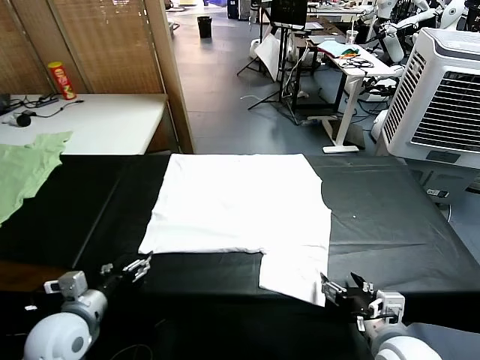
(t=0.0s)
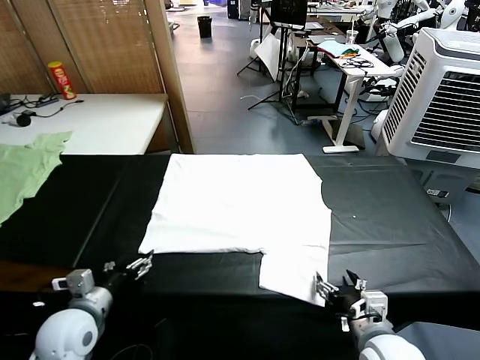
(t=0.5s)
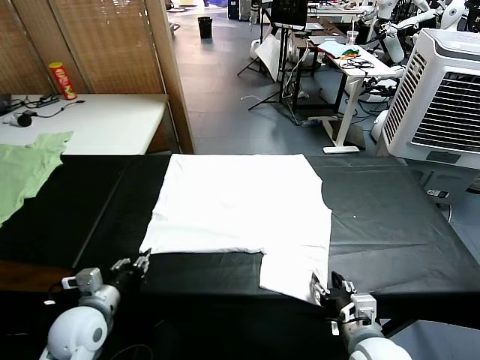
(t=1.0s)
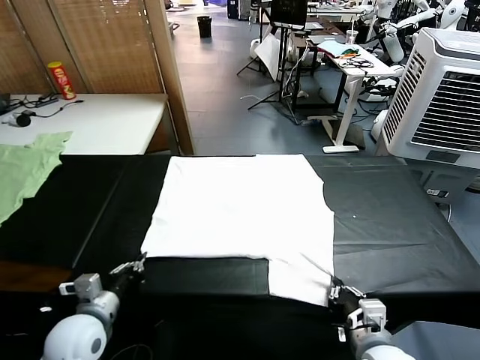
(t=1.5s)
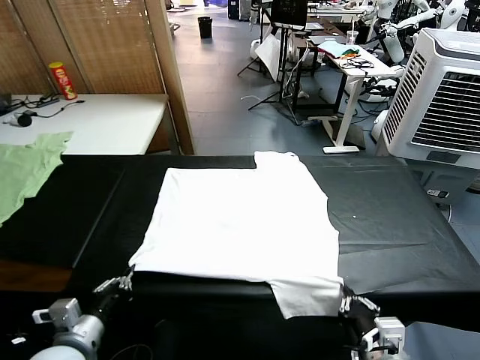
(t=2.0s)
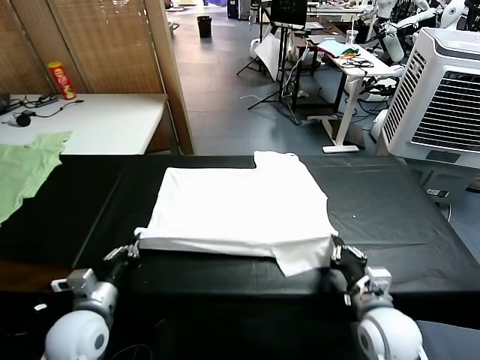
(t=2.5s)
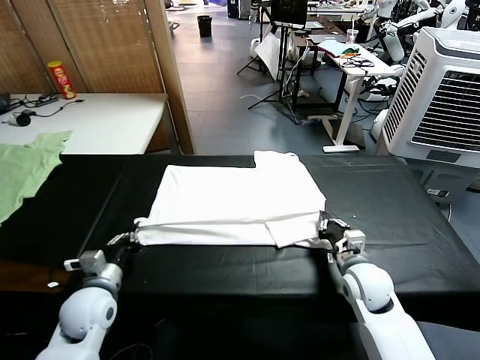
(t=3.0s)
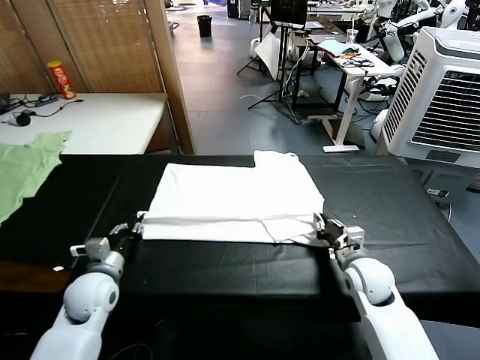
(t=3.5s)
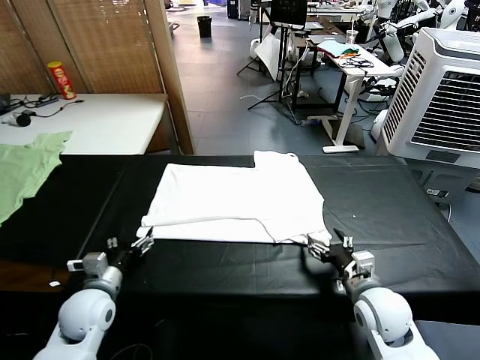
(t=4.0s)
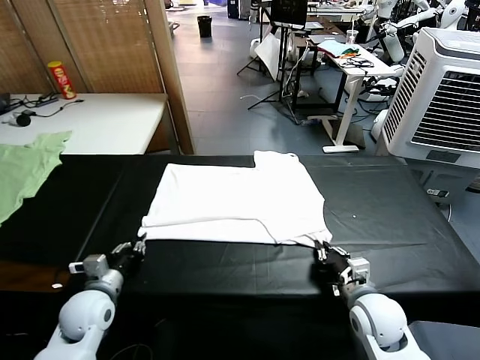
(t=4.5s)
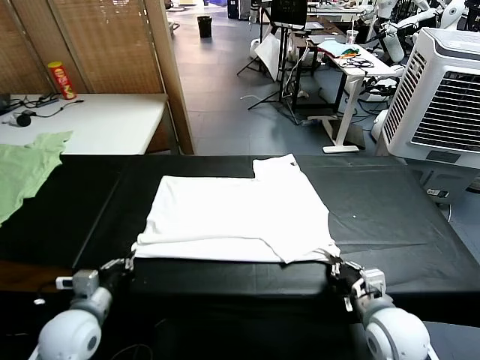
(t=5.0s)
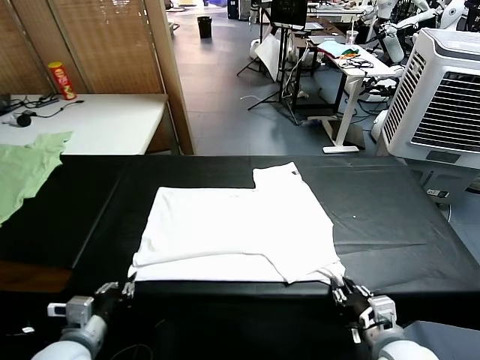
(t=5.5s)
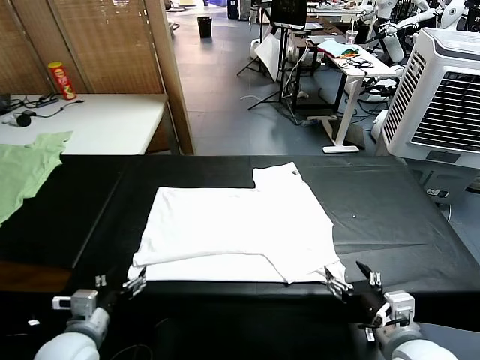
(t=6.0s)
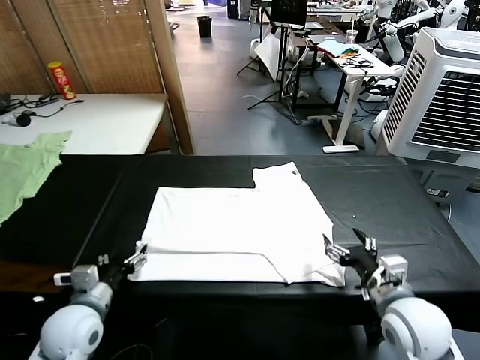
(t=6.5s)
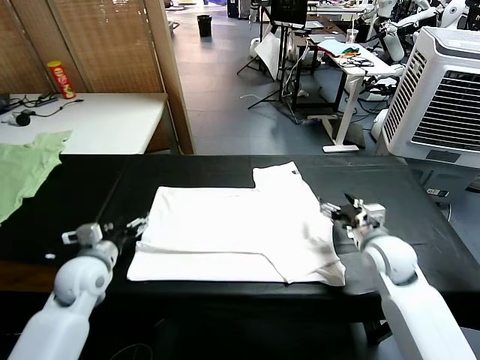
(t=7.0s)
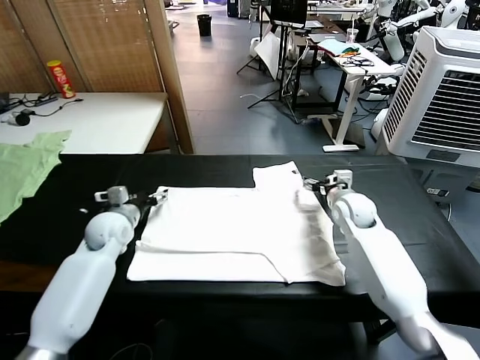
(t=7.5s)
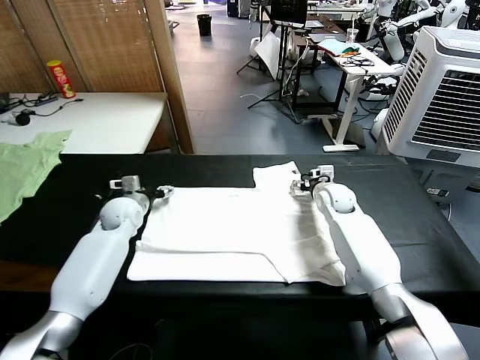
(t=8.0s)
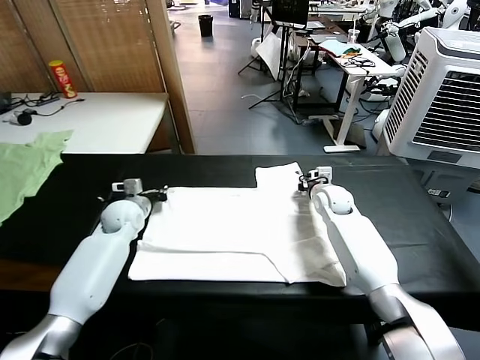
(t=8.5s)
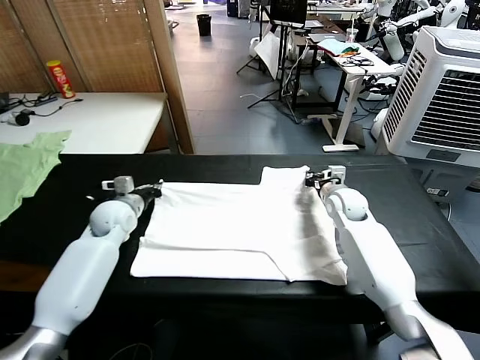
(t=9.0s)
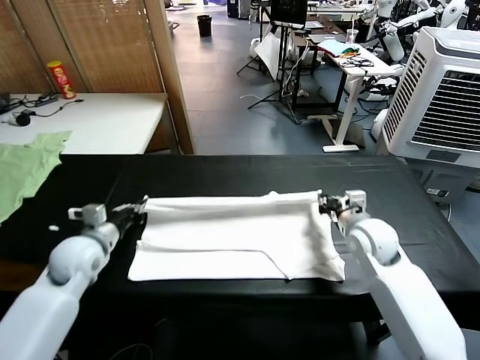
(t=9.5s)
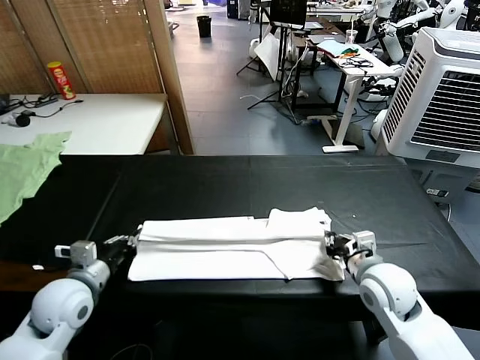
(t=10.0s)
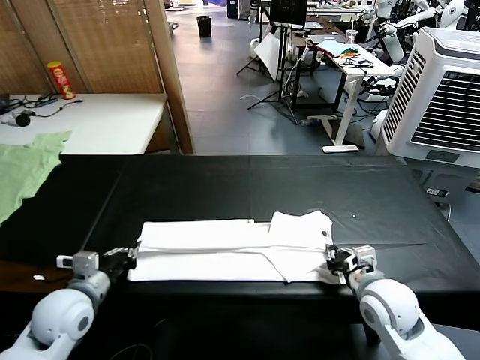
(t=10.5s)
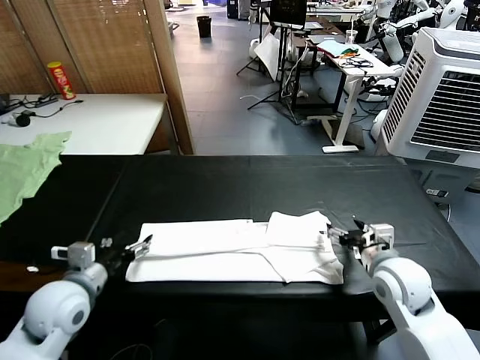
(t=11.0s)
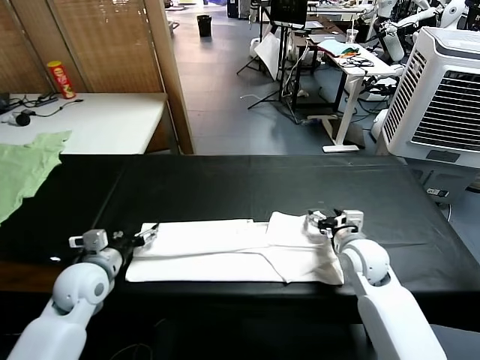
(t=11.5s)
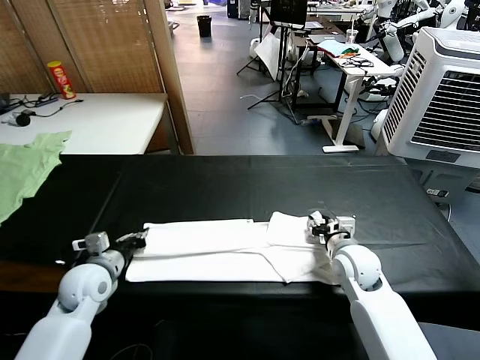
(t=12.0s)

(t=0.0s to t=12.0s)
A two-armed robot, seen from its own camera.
Task of the whole recording: fold and organize the clothes.
Step, t=0.0s - t=1.0s: use both grippers simultaneously to clamp the lower edge of the clothing fabric.
Step, t=1.5s - t=3.5s: use both grippers to drag the lower edge of the fabric forward and fold it over the upper edge.
Step, t=4.0s - t=5.5s: Drag the clothes downward with both gripper.
Step, t=6.0s - t=8.0s: use both grippers simultaneously to clamp the upper edge of the clothing fabric.
Step, t=8.5s - t=10.5s: use both grippers to drag the upper edge of the fabric backward and fold it over the lower edge.
t=2.0s - t=4.0s: The left gripper travels forward and downward by approximately 10 cm, and opens. Meanwhile the right gripper shifts about 10 cm forward, and opens up.
t=4.0s - t=6.0s: The right gripper shifts roughly 10 cm upward and backward, and closes, then opens again; the left gripper heads backward, covering approximately 10 cm, and closes and opens again.
t=6.0s - t=8.0s: The two grippers go approximately 35 cm forward.
t=8.0s - t=10.0s: Both grippers travel together backward, about 25 cm. The left gripper closes up, while the right gripper closes its fingers.
t=10.0s - t=12.0s: Both grippers travel together forward, approximately 5 cm. The left gripper opens, then closes once more, while the right gripper opens and closes again.

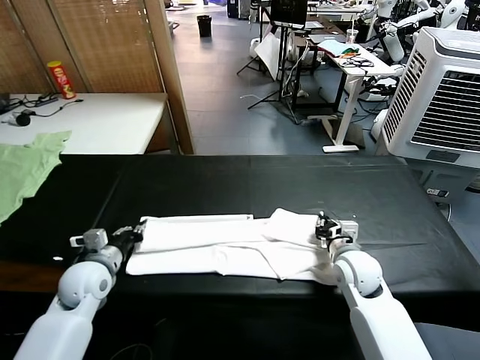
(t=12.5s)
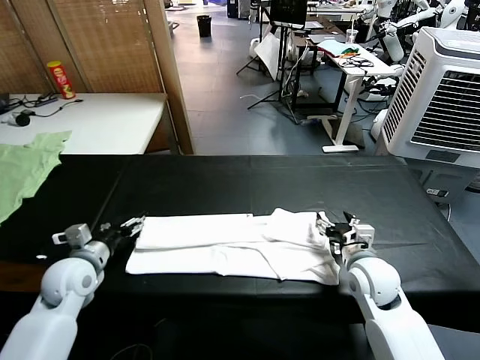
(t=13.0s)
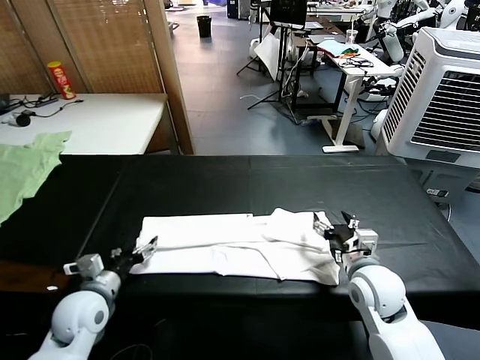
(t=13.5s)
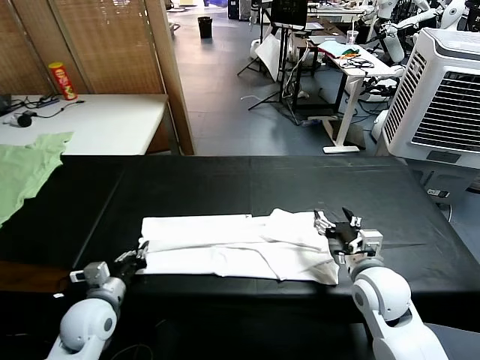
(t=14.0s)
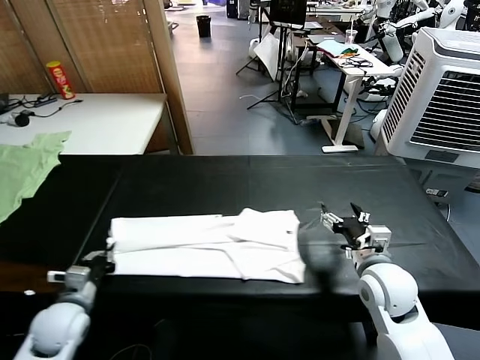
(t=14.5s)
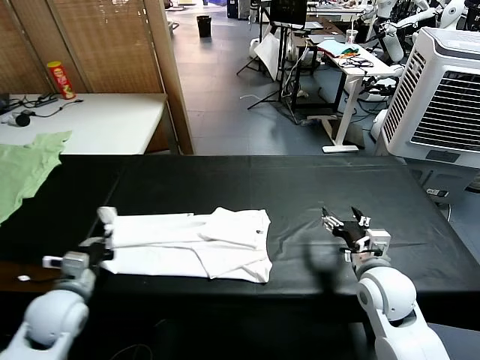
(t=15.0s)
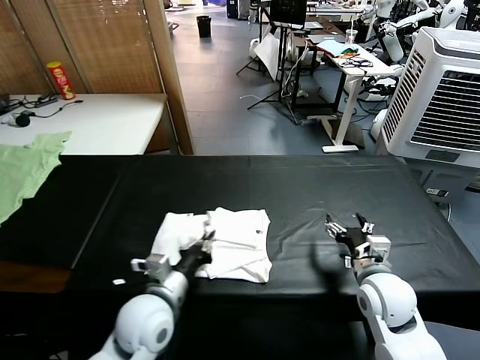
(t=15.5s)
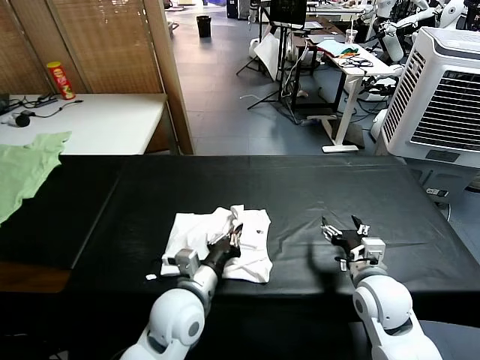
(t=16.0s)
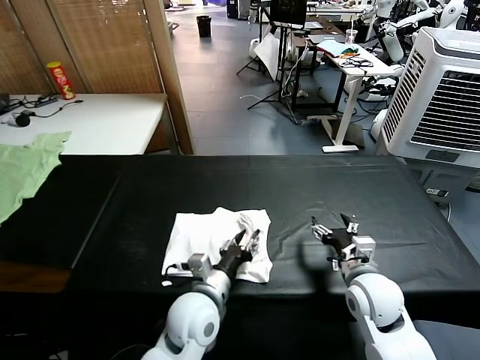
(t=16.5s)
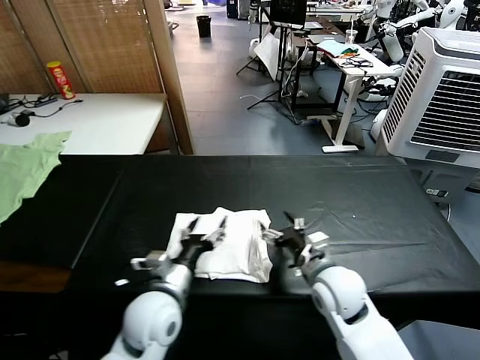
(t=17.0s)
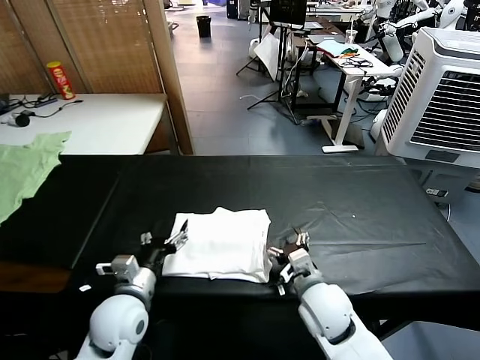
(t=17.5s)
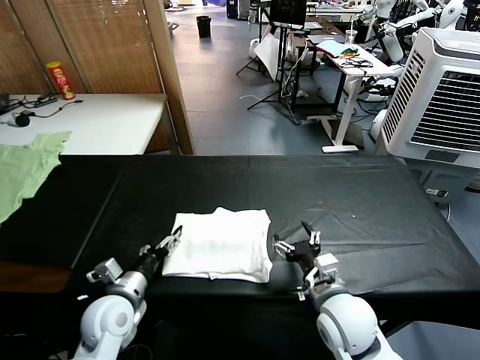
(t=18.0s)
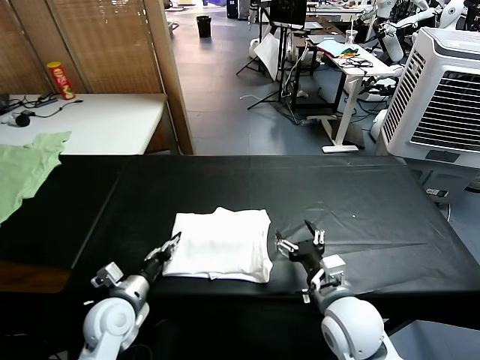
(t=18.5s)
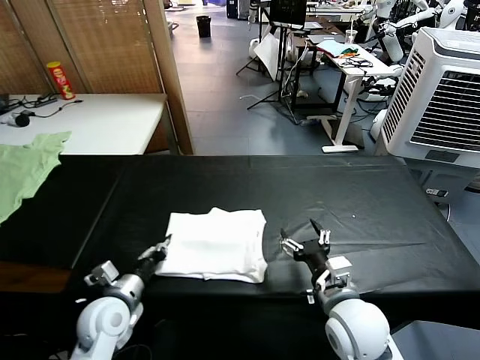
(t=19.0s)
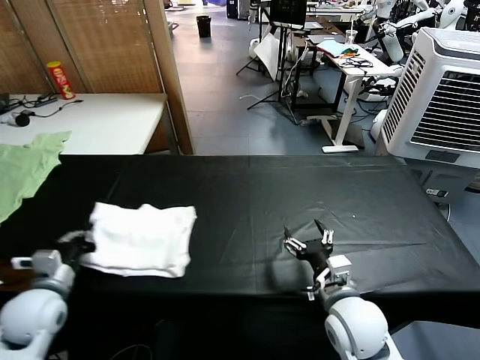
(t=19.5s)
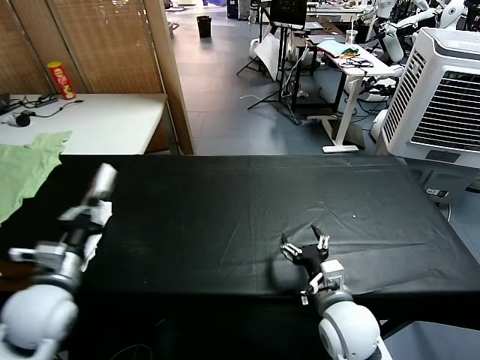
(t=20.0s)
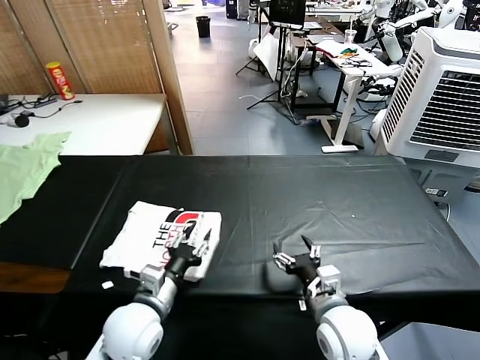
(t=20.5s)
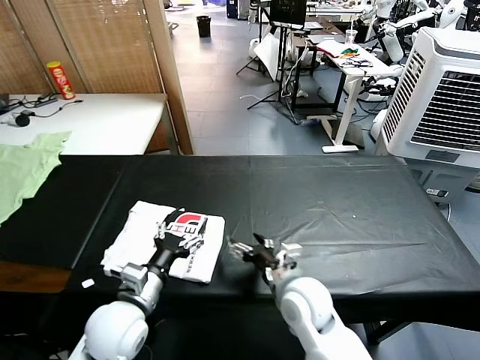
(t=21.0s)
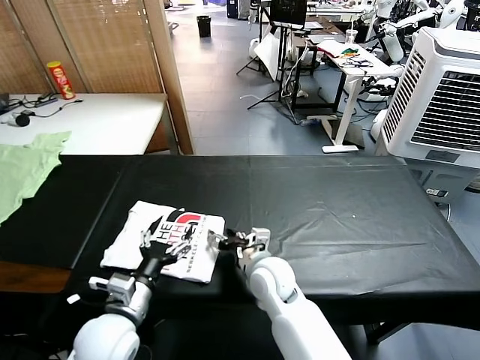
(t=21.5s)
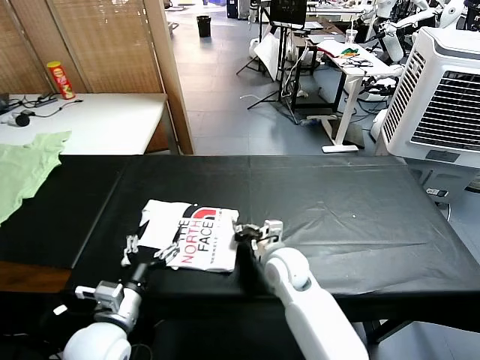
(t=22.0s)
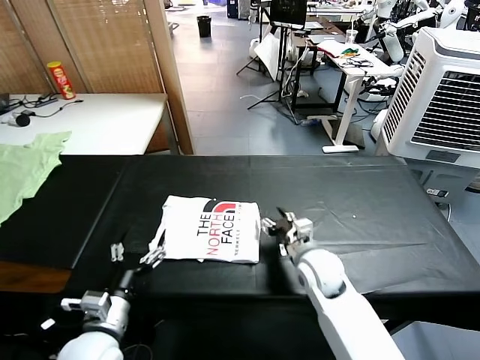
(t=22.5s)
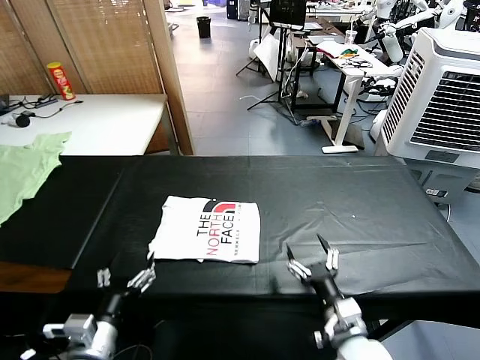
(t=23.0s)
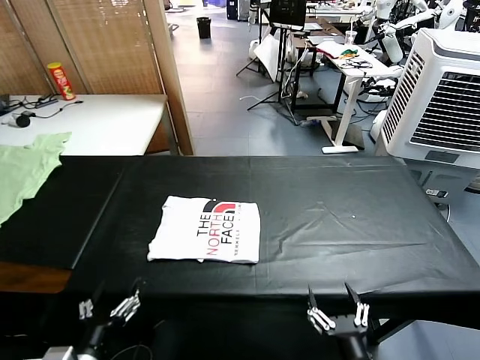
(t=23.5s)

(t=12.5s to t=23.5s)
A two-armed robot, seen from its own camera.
Task of the whole recording: fold and organize the clothes.
Step, t=12.5s - t=14.0s: use the left gripper to clamp the left edge of the fabric.
Step, t=14.5s - t=16.5s: use the left gripper to drag the left edge of the fabric to the left and folds it over the right edge.
Step, t=17.0s - t=20.5s: Flip the folded clothes over with left gripper.
Step, t=21.0s - t=22.0s: Drag the clothes to the center of the table.
t=12.5s - t=14.5s: The left gripper shifts roughly 10 cm backward, and opens, then closes again. Meanwhile the right gripper shifts about 10 cm backward and upward, and opens.
t=14.5s - t=16.0s: The left gripper is displaced to the right by some 25 cm.
t=16.0s - t=18.0s: The left gripper shifts about 15 cm to the left, and opens its fingers. The right gripper moves to the left, roughly 10 cm.
t=18.0s - t=20.0s: The left gripper shifts about 15 cm upward and to the left, and closes.
t=20.0s - t=21.5s: The right gripper moves to the left and forward, approximately 15 cm. The left gripper heads to the right and downward, covering some 10 cm, and opens up.
t=21.5s - t=23.5s: The left gripper goes some 10 cm backward. Meanwhile the right gripper is displaced backward and to the right by approximately 30 cm, and closes and opens again.

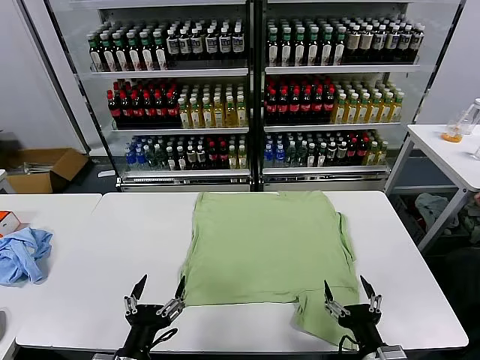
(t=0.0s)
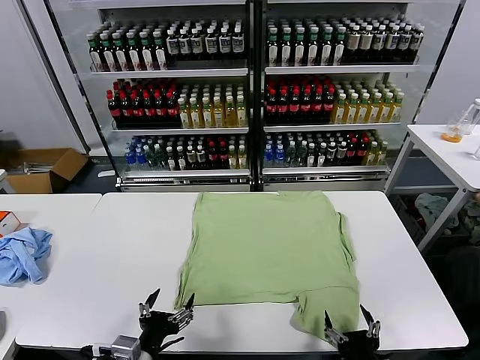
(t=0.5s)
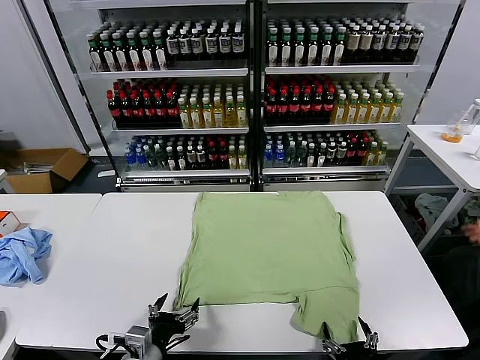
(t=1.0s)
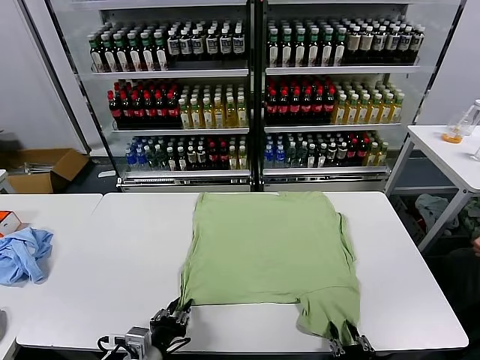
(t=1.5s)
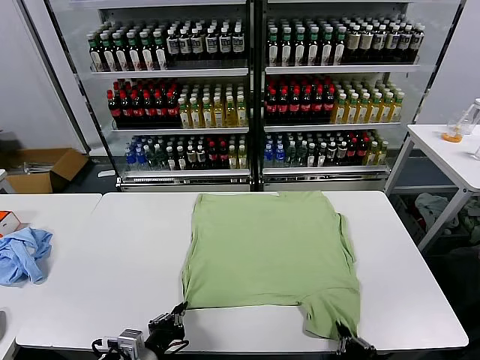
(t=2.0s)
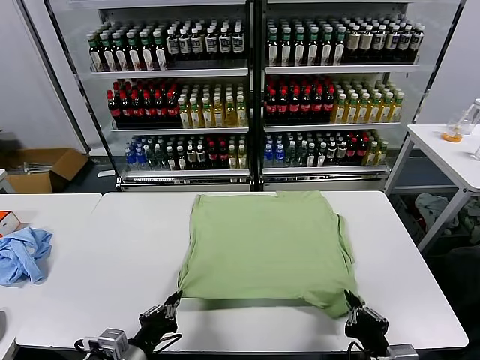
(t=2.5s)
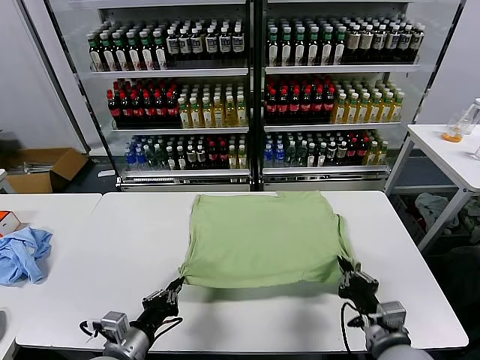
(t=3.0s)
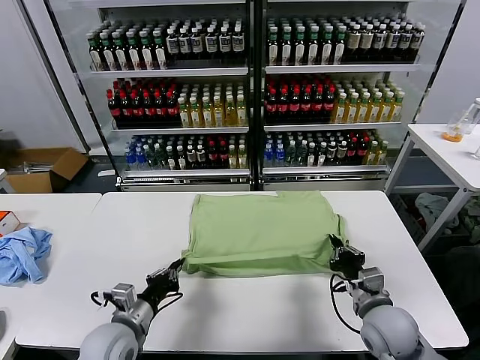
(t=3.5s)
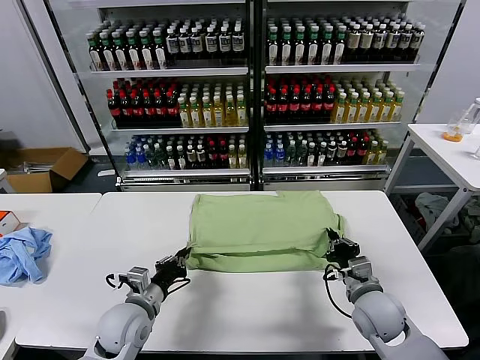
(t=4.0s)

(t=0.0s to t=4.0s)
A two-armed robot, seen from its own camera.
Task of the whole recording: fold and organize the clothes.
Step, t=0.0s - t=1.5s: use both grippers simultaneously to clamp the lower edge of the clothing fabric.
t=2.0s - t=4.0s: The right gripper goes approximately 20 cm forward, while the left gripper moves forward, approximately 15 cm.
